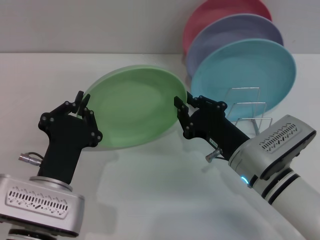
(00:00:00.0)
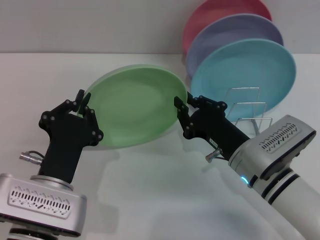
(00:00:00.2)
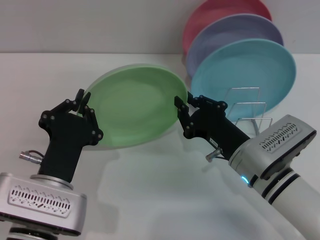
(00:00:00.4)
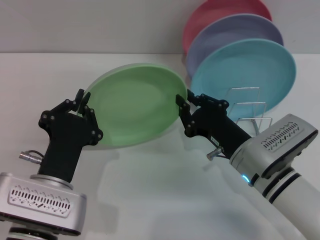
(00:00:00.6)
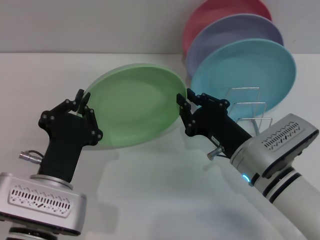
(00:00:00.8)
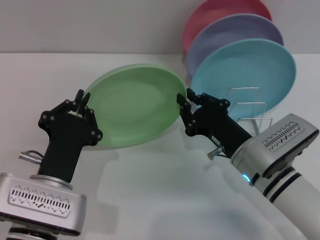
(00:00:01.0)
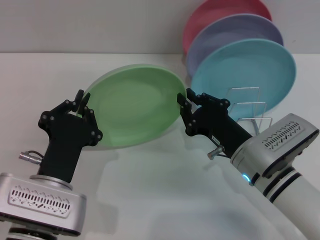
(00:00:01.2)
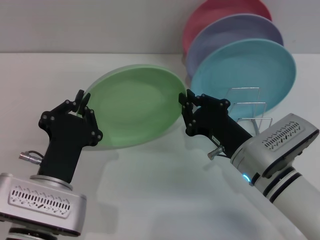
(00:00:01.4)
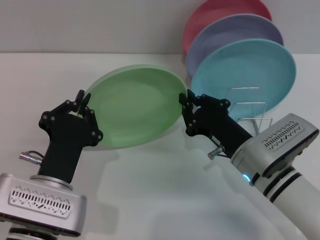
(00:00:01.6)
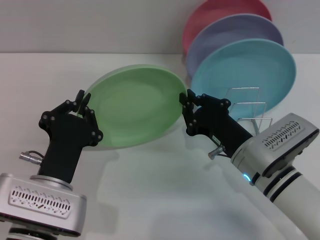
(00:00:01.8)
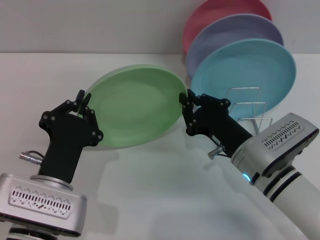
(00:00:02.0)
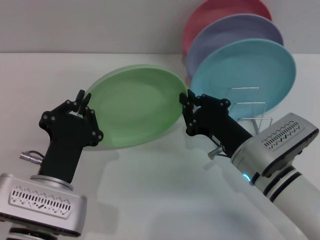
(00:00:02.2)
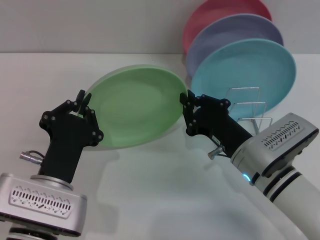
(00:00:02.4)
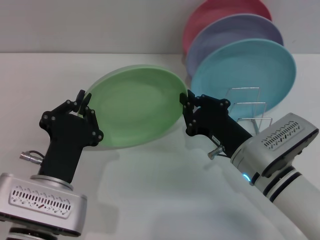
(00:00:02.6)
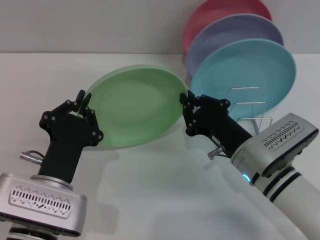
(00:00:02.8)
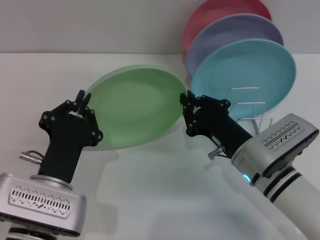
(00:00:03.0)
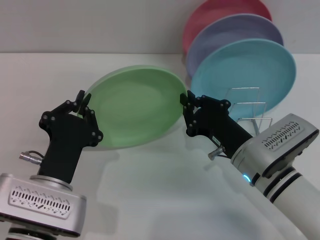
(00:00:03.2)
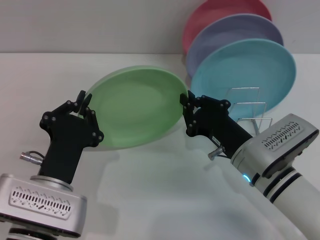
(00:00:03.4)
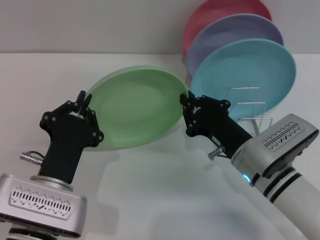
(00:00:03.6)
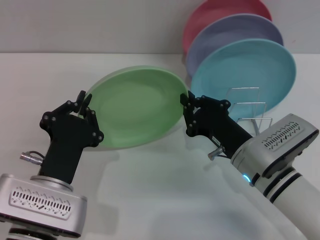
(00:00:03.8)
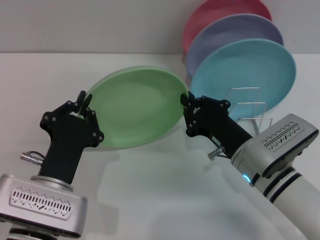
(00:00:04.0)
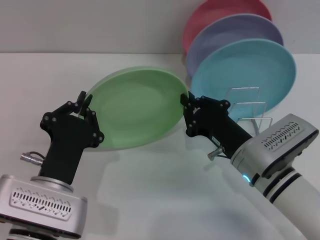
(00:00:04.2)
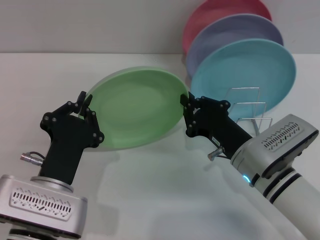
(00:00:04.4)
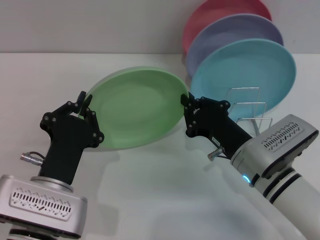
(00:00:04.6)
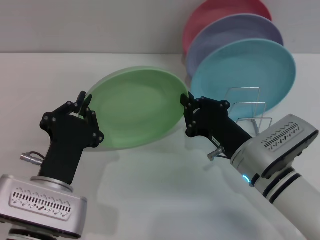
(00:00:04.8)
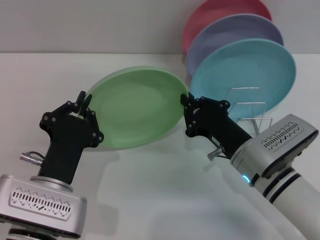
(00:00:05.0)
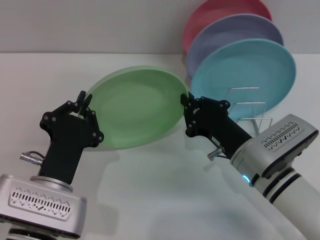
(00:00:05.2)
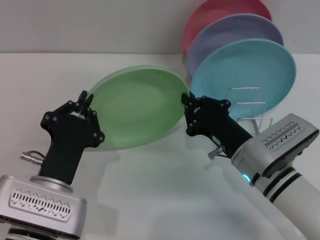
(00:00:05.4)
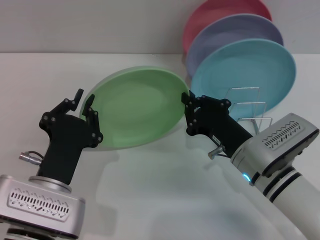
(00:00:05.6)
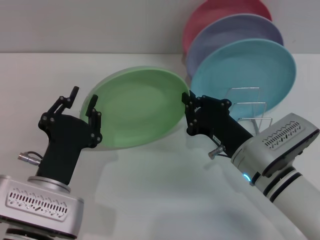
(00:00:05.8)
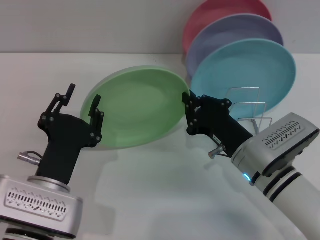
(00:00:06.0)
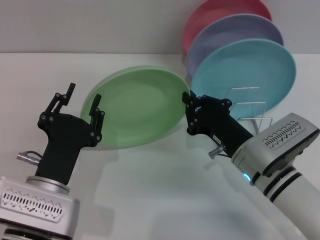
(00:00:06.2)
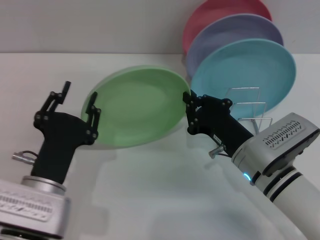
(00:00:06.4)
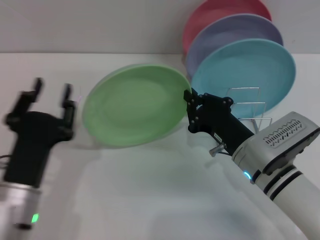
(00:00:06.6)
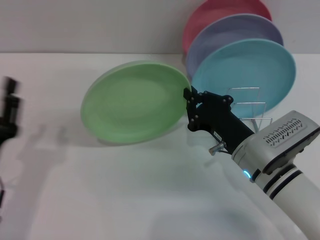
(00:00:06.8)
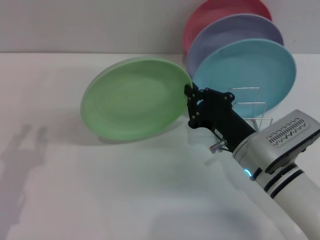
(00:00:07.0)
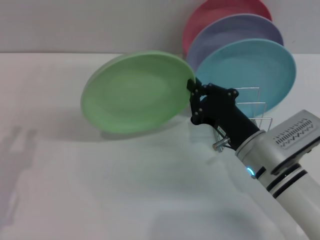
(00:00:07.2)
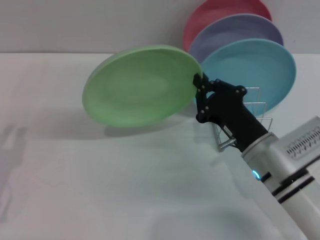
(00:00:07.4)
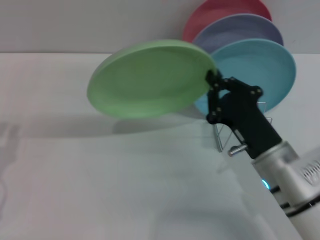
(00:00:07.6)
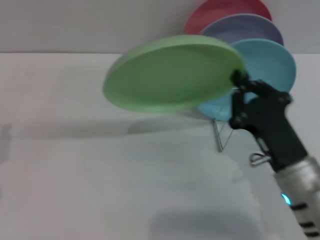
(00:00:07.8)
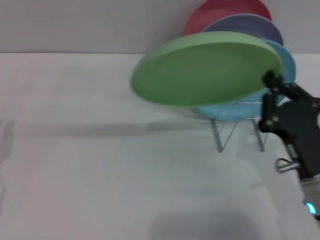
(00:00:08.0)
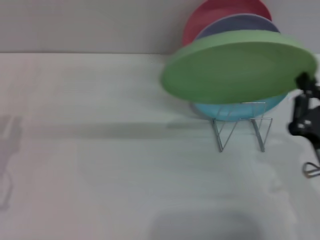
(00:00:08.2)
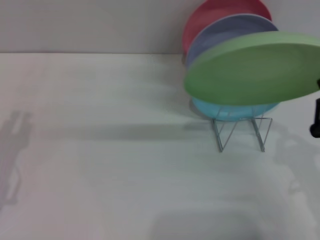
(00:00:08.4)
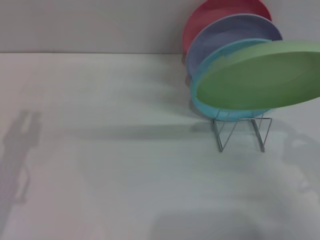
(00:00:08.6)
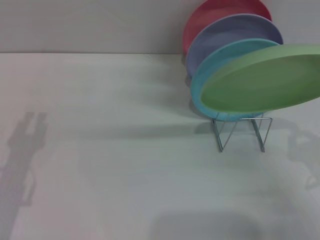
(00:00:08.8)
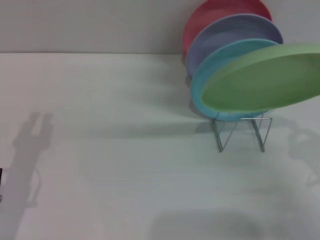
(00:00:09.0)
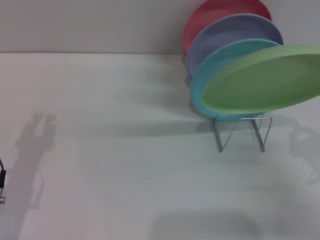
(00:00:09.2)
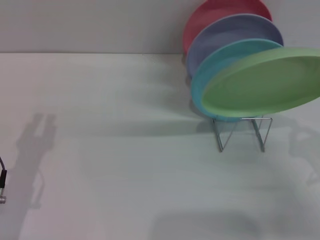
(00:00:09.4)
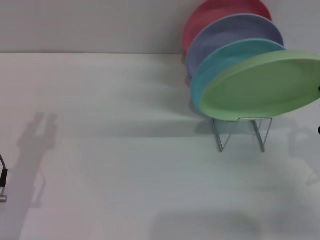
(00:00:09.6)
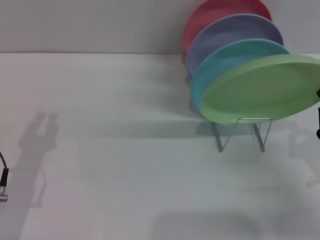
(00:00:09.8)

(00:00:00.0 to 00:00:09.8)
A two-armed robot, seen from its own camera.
Task of the whole recording: Grip the plate with one hand, pass it to the other, then set it on the shelf.
Step, 00:00:00.0 - 00:00:06.4: Pass the plate from the left gripper to the right gripper.
00:00:00.0 - 00:00:05.6: Both grippers stay put.
00:00:05.6 - 00:00:07.0: The left gripper travels to the left by some 10 cm, and opens its fingers.
00:00:07.0 - 00:00:08.4: The right gripper goes about 15 cm to the right and backward.
00:00:08.4 - 00:00:09.8: The right gripper is displaced to the right by approximately 5 cm.

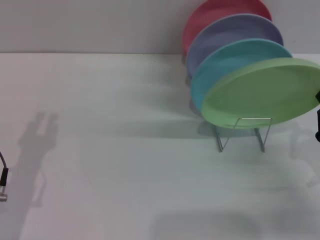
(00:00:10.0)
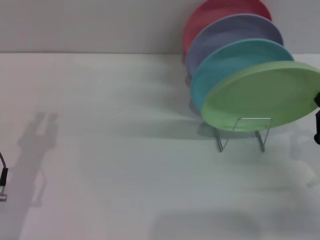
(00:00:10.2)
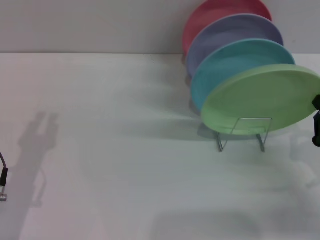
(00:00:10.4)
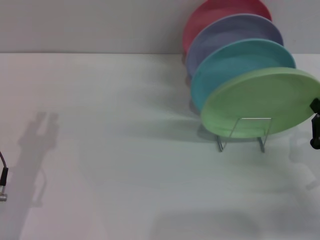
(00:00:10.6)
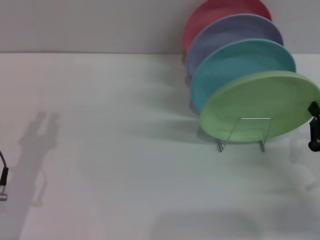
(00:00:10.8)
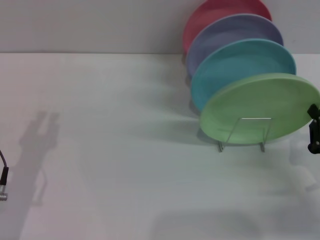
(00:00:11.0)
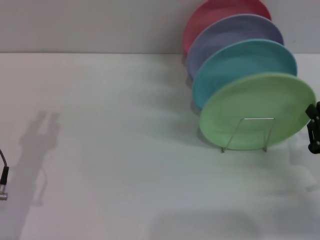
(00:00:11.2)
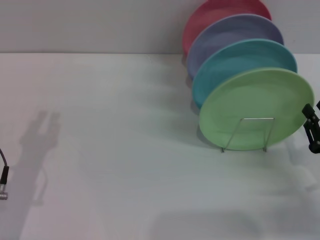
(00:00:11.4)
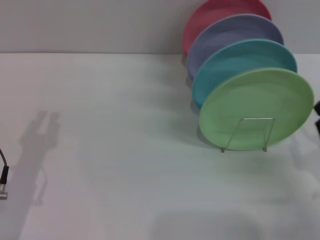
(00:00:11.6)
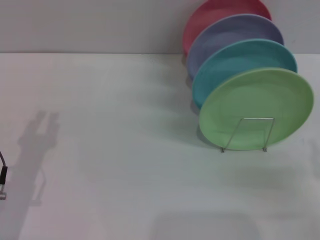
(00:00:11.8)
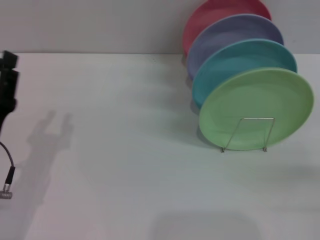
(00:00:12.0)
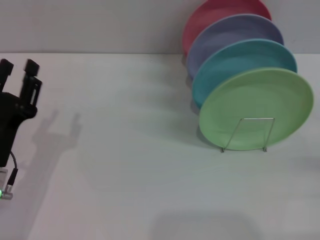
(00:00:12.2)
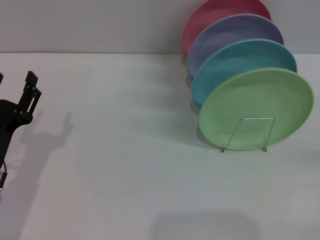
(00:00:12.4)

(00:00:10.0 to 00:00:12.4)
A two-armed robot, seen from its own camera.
Task of the whole recording: Grip the plate with one hand, pass it to the other, then set it on the shelf.
00:00:10.0 - 00:00:11.2: The grippers move only a little.
00:00:11.2 - 00:00:12.4: The right gripper shifts some 10 cm to the right, and opens up.
